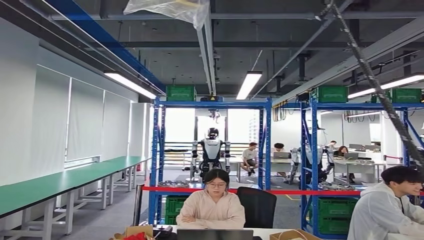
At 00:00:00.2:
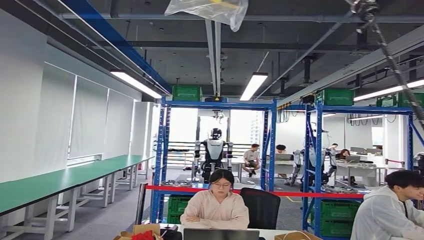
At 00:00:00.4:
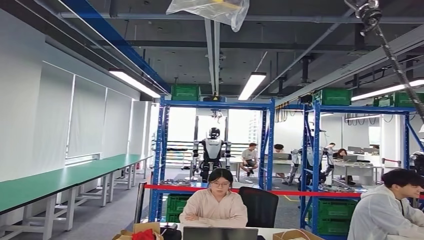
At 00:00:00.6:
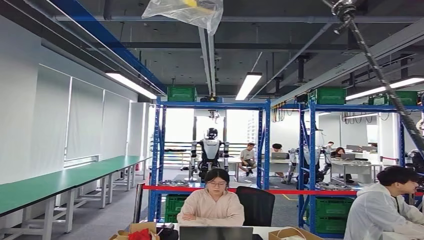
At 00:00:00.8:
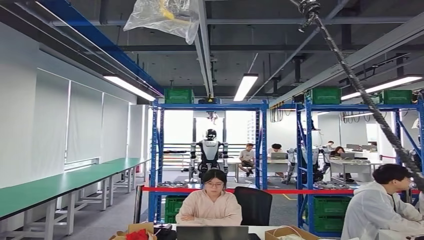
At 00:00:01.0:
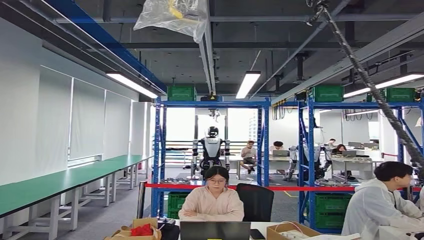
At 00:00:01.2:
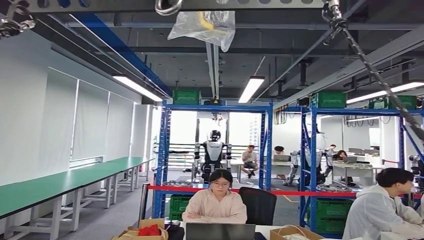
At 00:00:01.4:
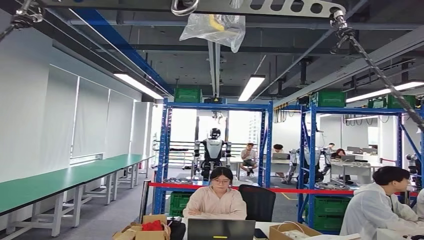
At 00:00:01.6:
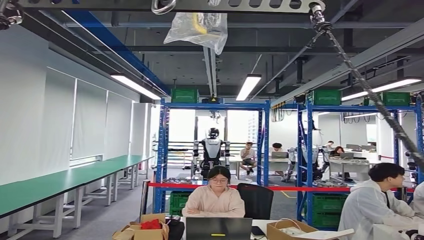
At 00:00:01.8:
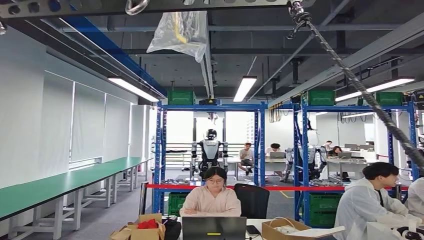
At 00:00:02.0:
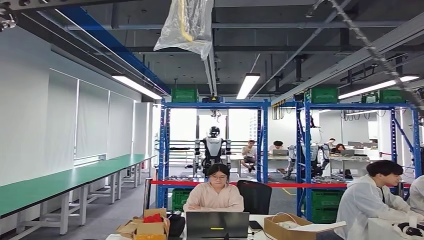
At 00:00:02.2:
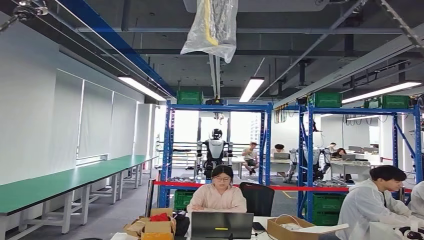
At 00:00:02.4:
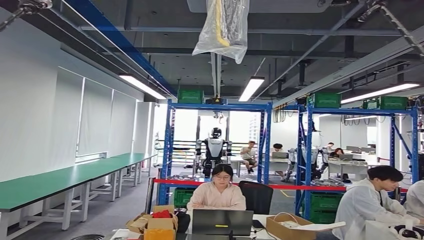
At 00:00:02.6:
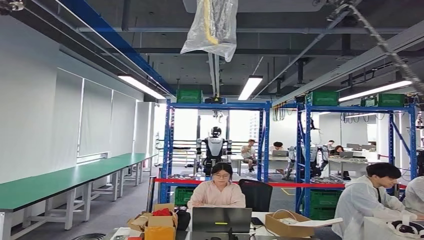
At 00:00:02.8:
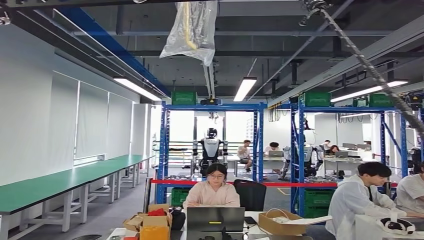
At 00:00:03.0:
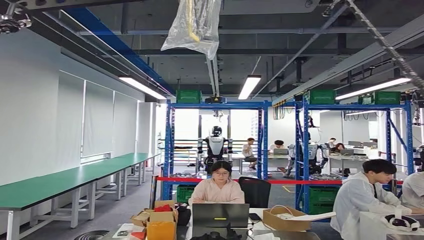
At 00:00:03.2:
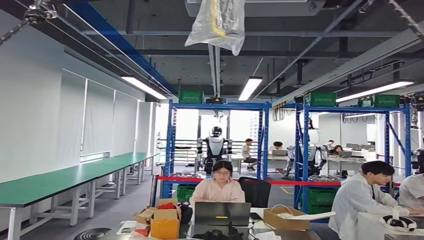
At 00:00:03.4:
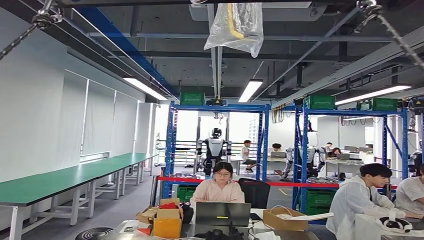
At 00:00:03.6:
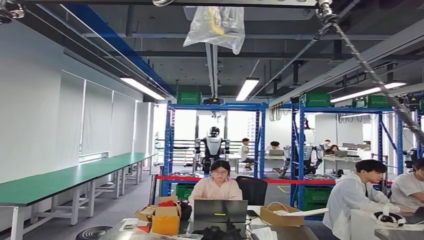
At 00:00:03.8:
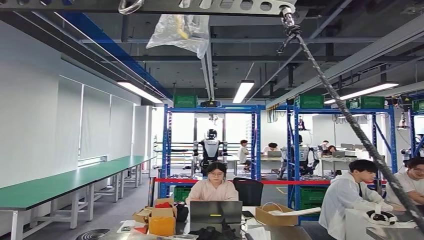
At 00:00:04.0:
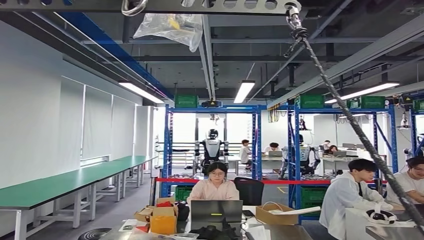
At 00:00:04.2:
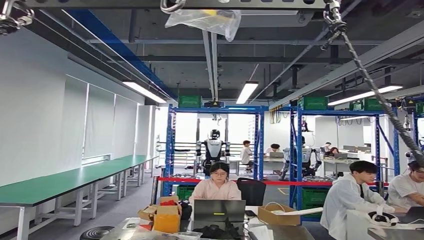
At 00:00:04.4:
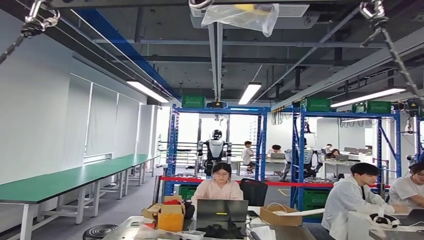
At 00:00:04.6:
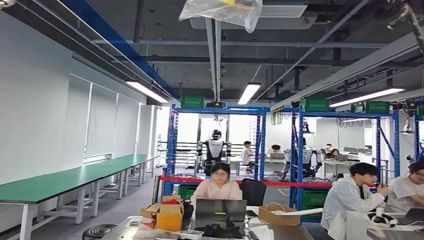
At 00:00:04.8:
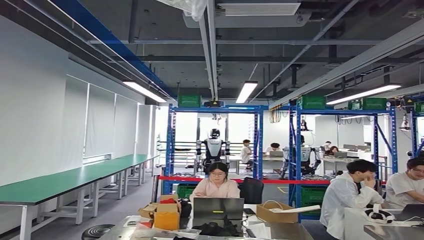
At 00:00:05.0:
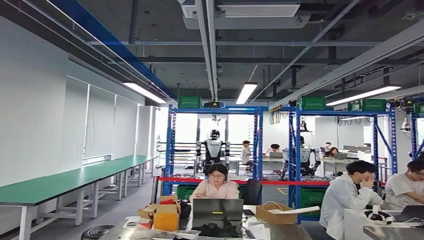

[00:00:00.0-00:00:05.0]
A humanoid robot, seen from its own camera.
Step, 00:00:00.4 to 00:00:05.0: Return to the initial position at the workbench.
